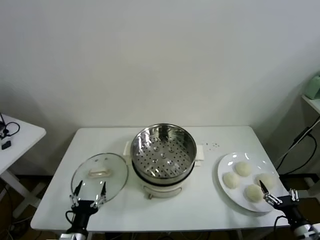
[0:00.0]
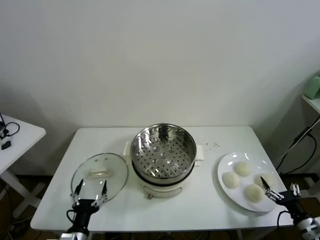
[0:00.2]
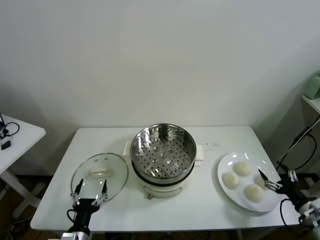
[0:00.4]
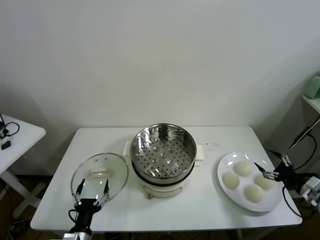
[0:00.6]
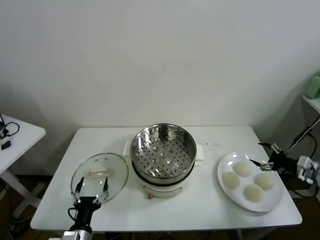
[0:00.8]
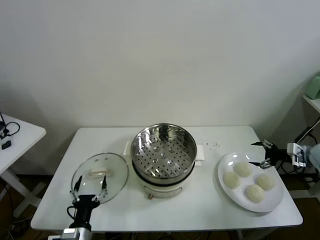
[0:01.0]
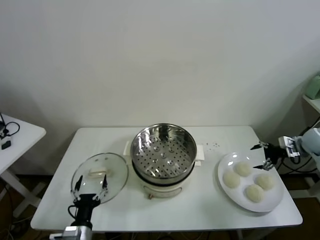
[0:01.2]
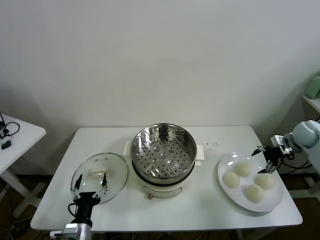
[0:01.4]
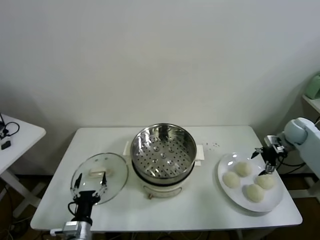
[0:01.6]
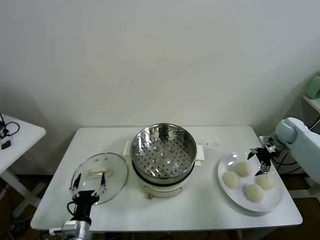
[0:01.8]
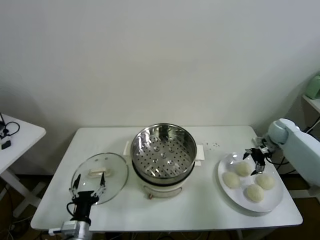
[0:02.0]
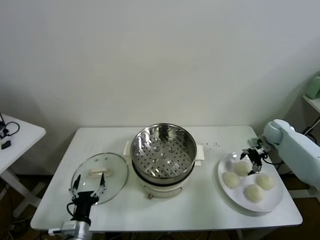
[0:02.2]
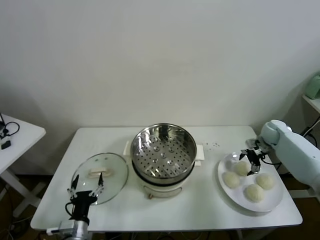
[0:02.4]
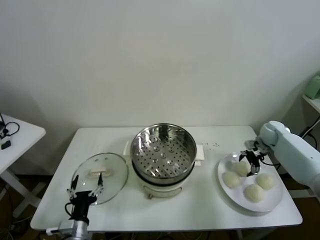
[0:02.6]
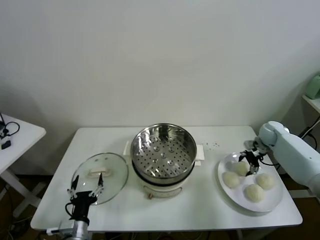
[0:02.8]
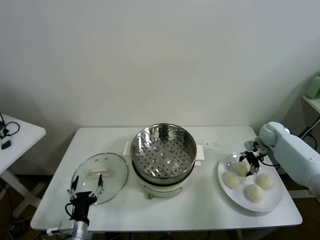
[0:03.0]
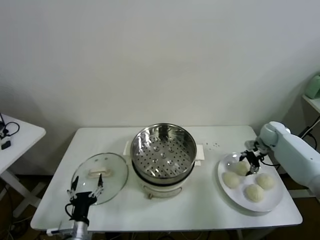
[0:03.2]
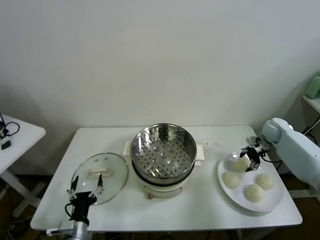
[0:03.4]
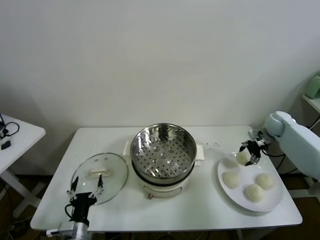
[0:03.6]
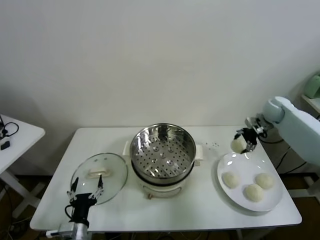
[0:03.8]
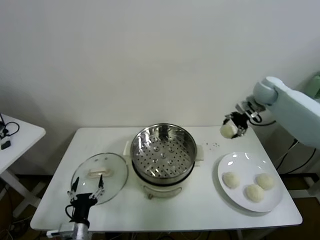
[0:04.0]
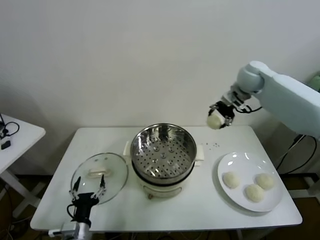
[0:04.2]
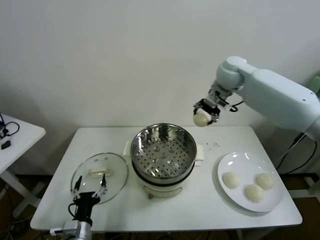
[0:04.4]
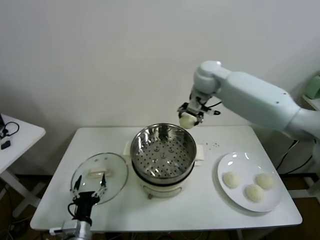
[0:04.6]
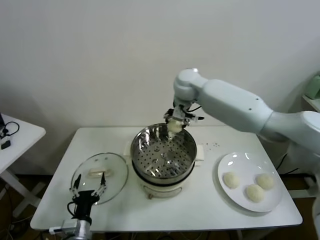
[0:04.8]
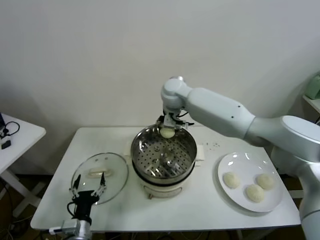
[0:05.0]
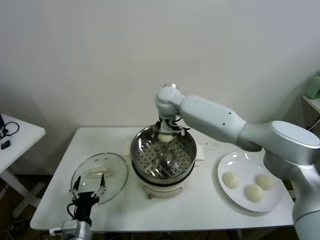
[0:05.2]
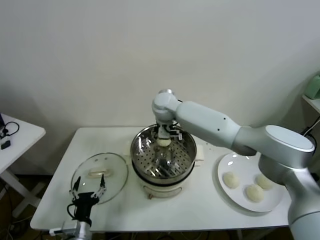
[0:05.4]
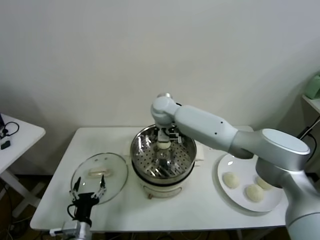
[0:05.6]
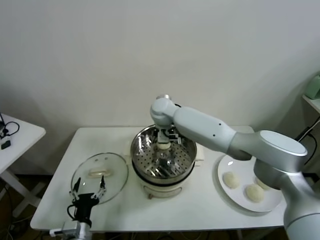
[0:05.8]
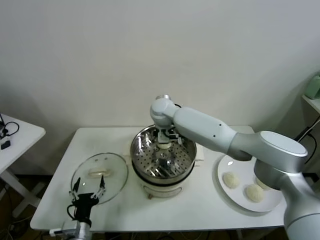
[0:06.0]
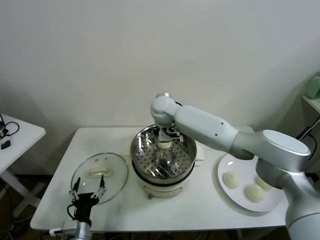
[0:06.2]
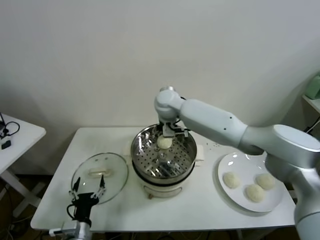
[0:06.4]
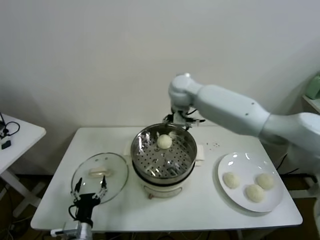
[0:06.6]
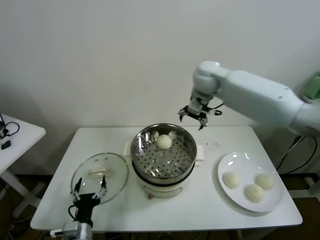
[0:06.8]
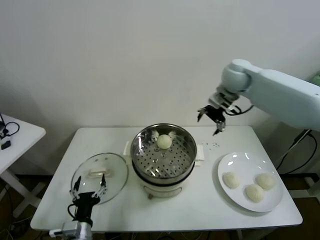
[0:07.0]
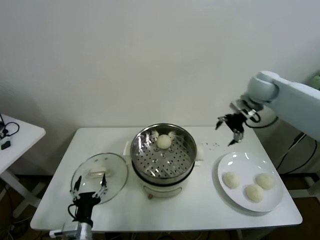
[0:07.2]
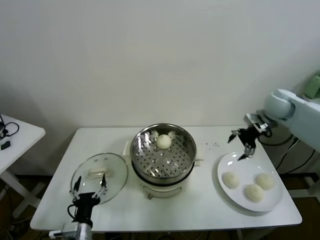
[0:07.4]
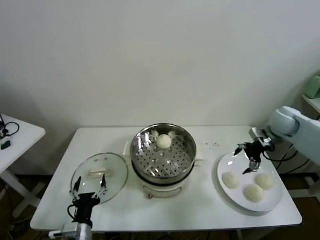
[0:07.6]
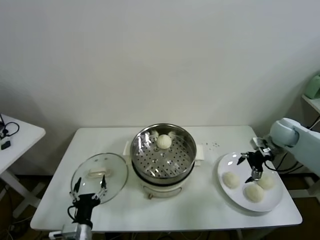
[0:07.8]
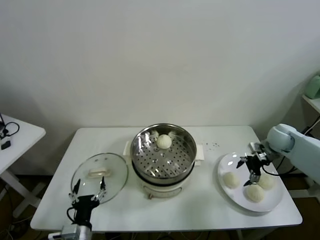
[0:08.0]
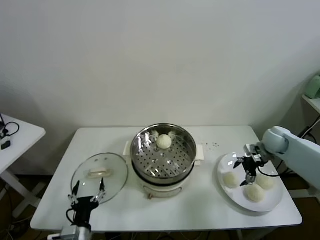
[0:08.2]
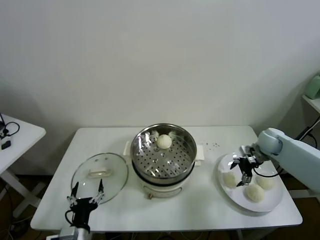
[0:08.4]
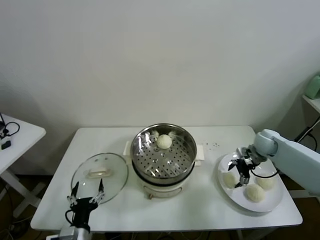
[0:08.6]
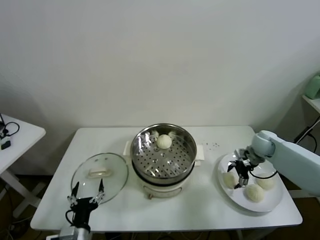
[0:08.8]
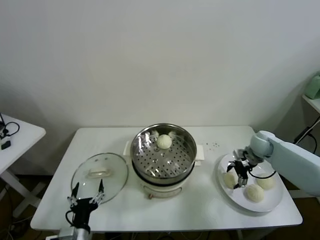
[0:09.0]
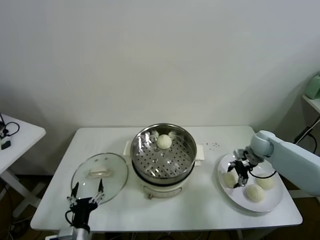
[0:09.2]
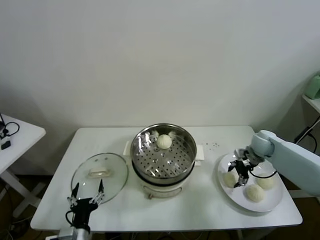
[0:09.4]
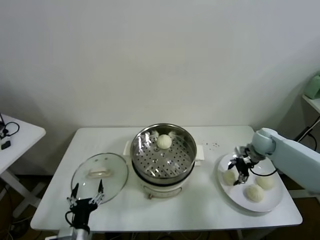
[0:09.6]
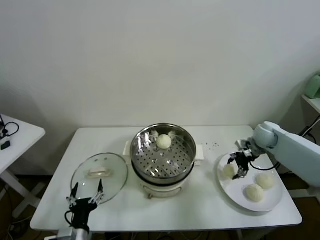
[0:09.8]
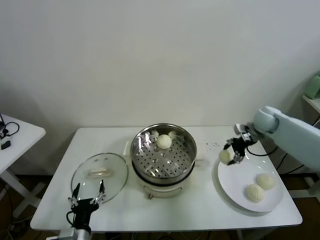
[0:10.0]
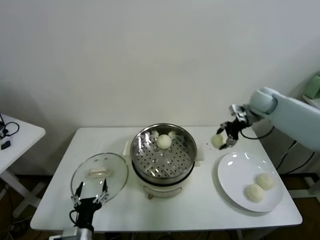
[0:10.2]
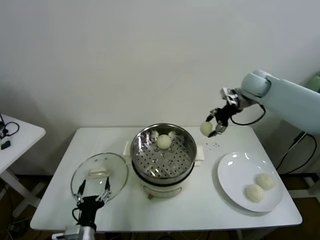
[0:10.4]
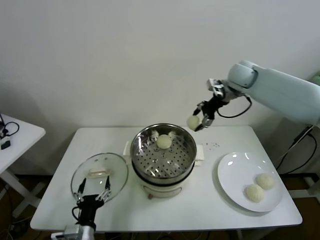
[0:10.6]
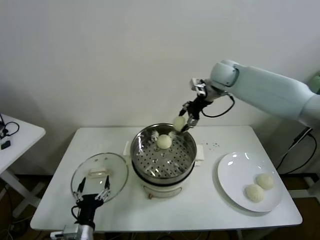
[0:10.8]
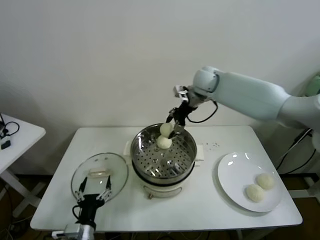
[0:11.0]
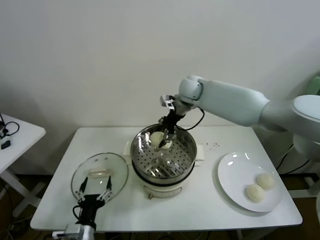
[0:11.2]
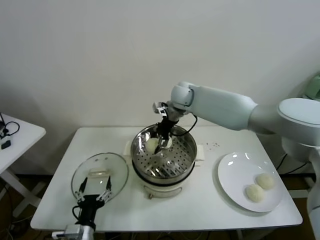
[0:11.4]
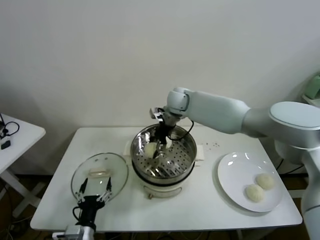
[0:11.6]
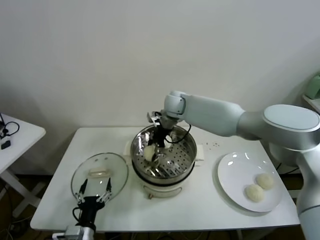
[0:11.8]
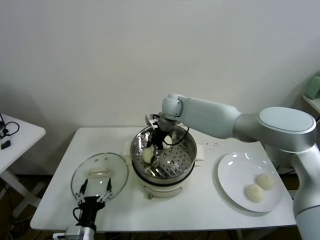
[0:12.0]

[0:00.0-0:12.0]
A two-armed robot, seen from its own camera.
Task of the whole recording: take steamed baozi put them in steamer.
Step, 0:00.0 to 0:02.8: Grasp the baozi in the plate with right gripper.
Step, 0:03.2 to 0:06.2: Place the baozi on the steamer with right gripper.
Step, 0:06.6 to 0:09.2: Grasp the baozi in the plate with right gripper.
0:01.6 to 0:03.0: The right gripper moves to the left and downward, roughly 10 cm, and closes its fingers.
0:03.0 to 0:04.4: The right gripper heads upward and to the left, covering about 35 cm.
0:04.4 to 0:06.0: The right gripper travels to the left and downward by approximately 25 cm, and opens its fingers.
0:06.0 to 0:07.6: The right gripper is displaced to the right by about 40 cm.
0:07.6 to 0:09.0: The right gripper shifts about 10 cm downward.
0:09.0 to 0:10.4: The right gripper travels upward by roughly 20 cm, and closes up.
0:10.4 to 0:12.0: The right gripper travels to the left by about 30 cm.

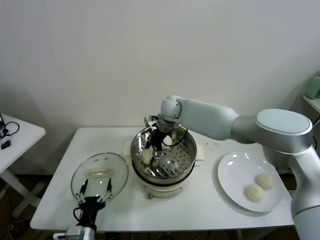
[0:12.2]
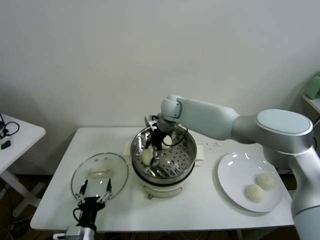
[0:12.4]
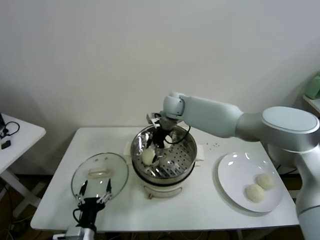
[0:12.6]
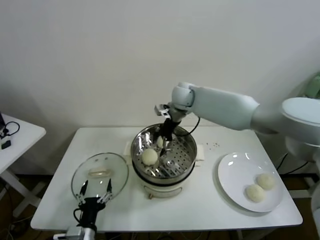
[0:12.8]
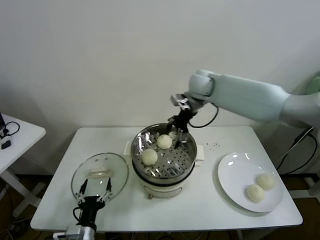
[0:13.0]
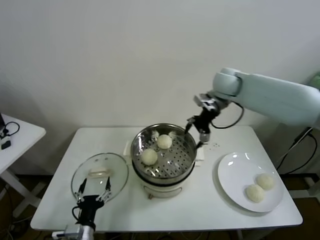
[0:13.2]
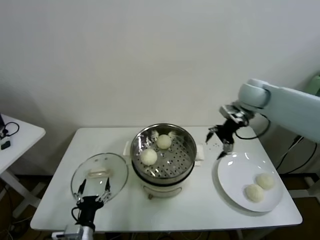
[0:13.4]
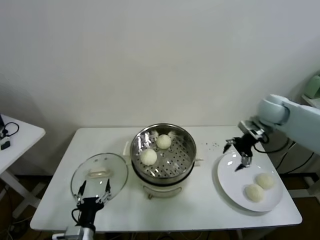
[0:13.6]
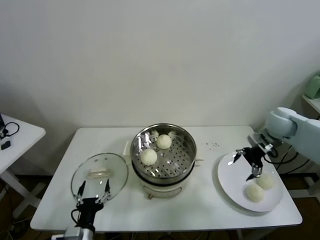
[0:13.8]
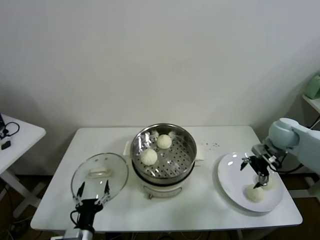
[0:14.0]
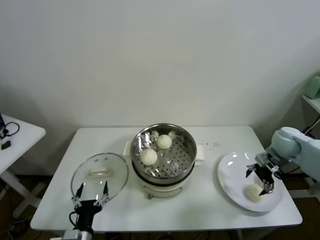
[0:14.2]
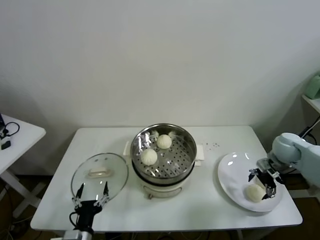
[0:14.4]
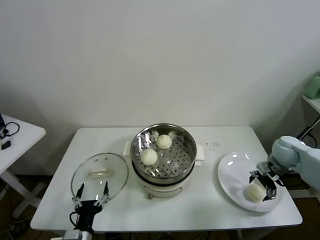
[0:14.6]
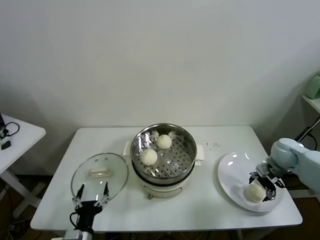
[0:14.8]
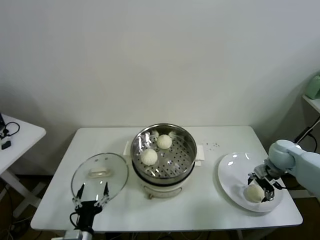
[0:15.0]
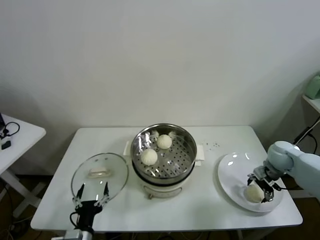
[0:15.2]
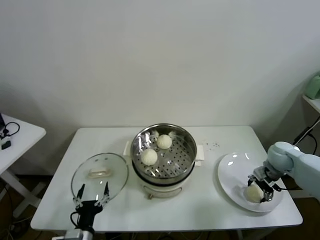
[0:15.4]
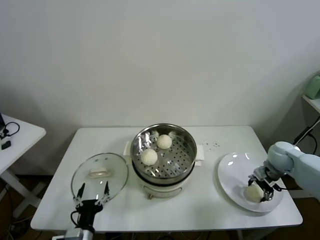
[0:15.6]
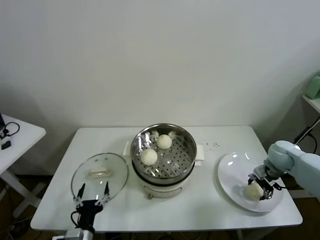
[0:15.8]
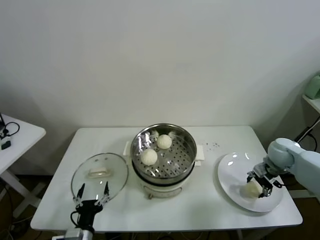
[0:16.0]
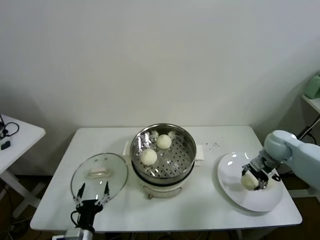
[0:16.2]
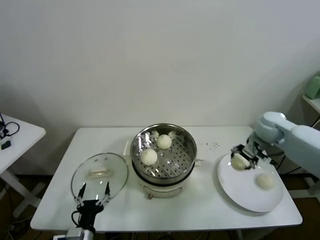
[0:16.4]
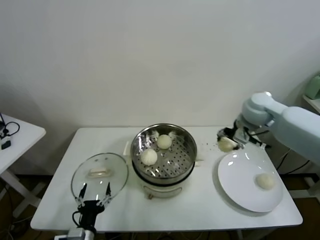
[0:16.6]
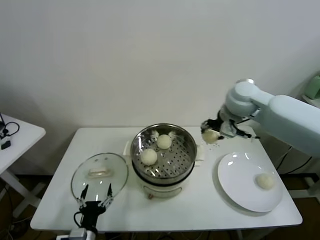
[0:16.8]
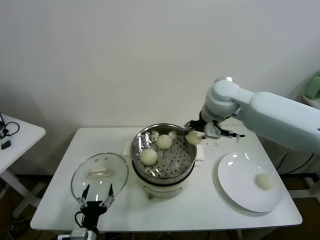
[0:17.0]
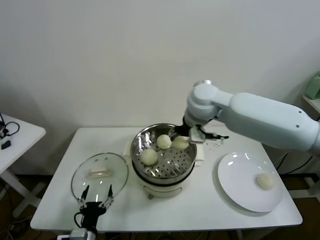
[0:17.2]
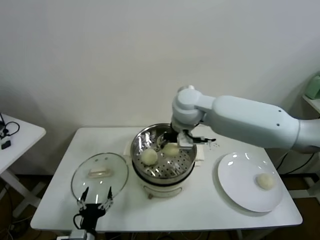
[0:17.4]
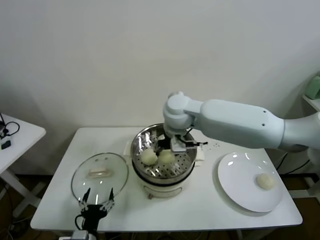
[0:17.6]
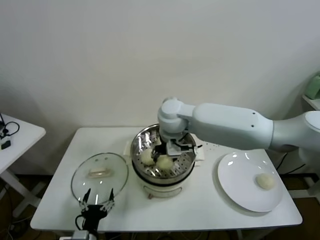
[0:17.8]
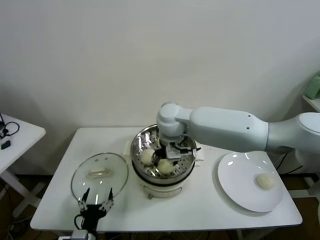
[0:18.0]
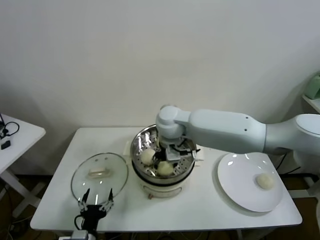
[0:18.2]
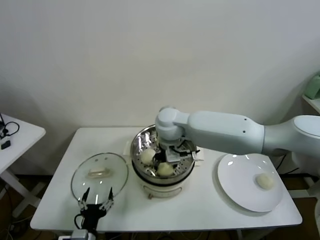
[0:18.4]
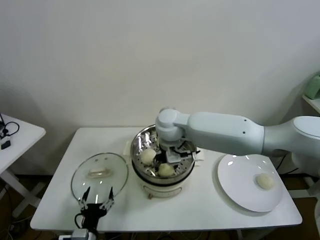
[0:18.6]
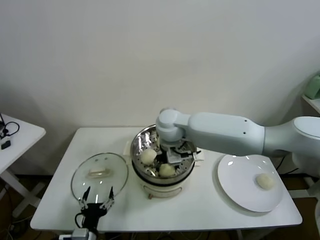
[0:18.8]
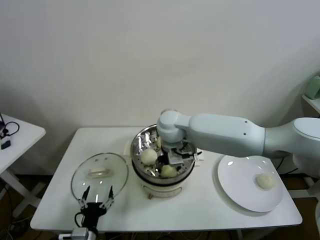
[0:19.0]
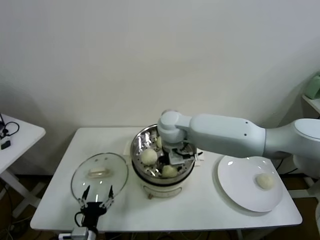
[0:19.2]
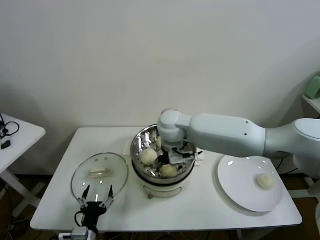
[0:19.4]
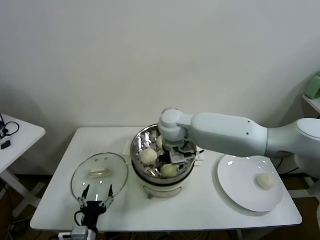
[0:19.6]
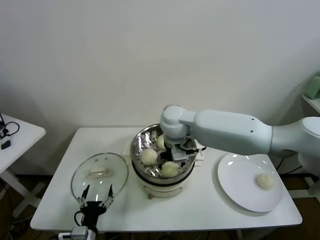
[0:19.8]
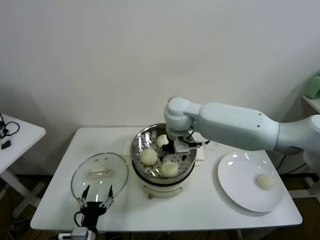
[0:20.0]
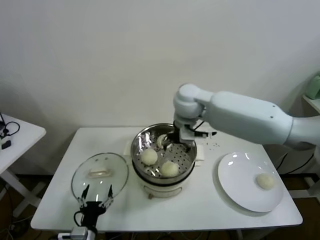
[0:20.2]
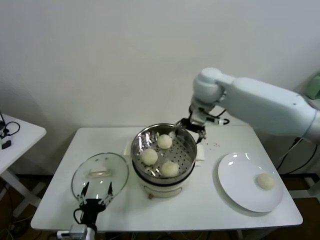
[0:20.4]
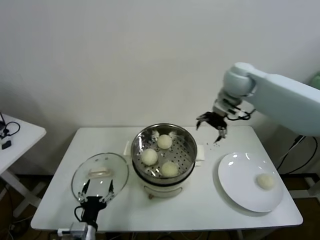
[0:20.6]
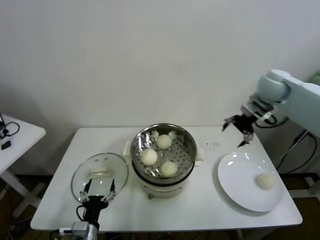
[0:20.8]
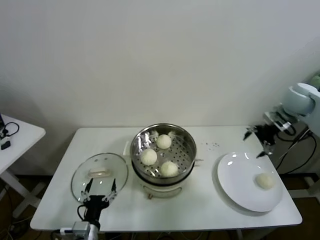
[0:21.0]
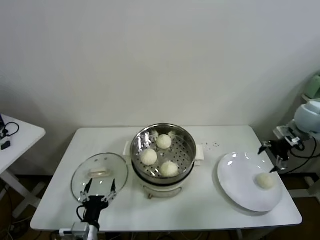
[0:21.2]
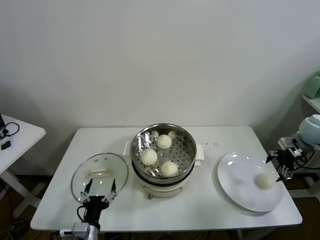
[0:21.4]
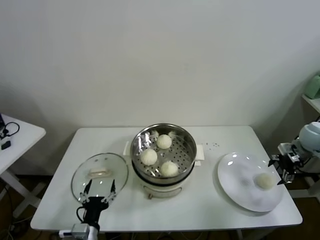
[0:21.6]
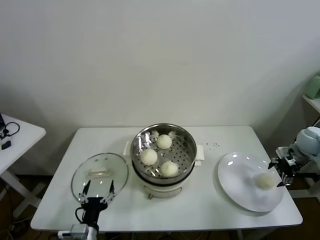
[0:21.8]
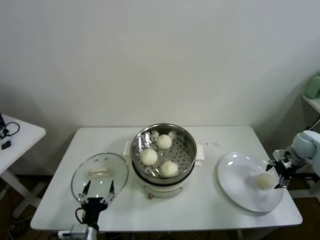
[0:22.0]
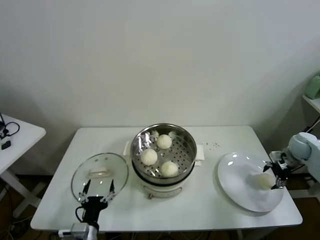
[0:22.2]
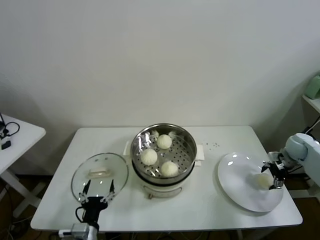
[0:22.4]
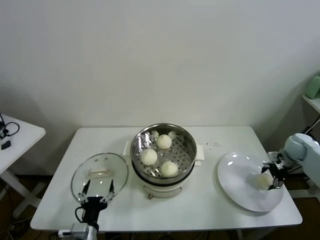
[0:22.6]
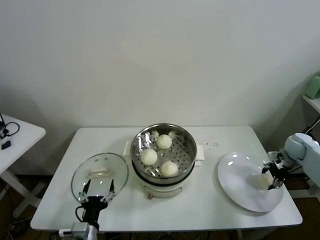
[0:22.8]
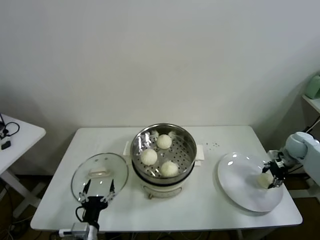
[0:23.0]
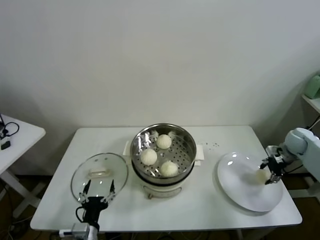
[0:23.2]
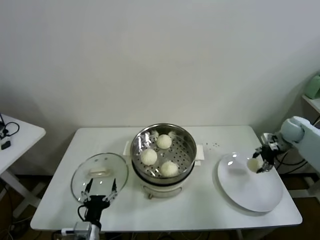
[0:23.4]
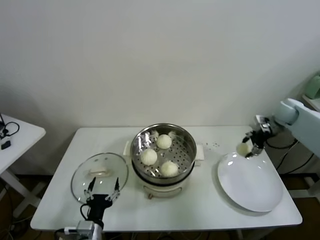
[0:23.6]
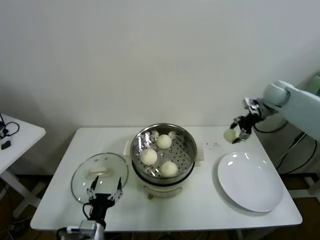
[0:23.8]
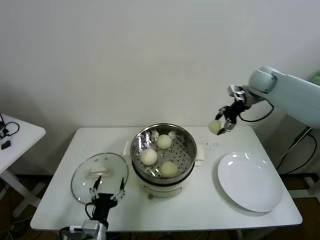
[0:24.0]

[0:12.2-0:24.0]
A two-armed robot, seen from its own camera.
Task of the whole recording: take steamed baozi put them in steamer.
Step, 0:12.8 to 0:15.4: Grasp the baozi in the plate with right gripper.
Step, 0:15.6 to 0:19.8: Place the baozi on the steamer with right gripper.
Step, 0:20.0 to 0:22.8: Grasp the baozi in the plate with right gripper.
0:12.2 to 0:13.6: The right gripper travels to the right by roughly 30 cm, and opens its fingers.
0:13.6 to 0:15.2: The right gripper is displaced downward, to the right and backward by some 20 cm.
0:15.2 to 0:16.6: The right gripper shifts roughly 20 cm upward and to the left, and closes up.
0:16.6 to 0:18.2: The right gripper shifts about 30 cm to the left.
0:18.2 to 0:19.6: The right gripper opens up.
0:19.6 to 0:21.0: The right gripper heads to the right, covering roughly 40 cm.
0:21.0 to 0:22.6: The right gripper travels downward and to the right by roughly 25 cm.
0:22.6 to 0:24.0: The right gripper moves upward, to the left and forward, approximately 30 cm, and closes.
